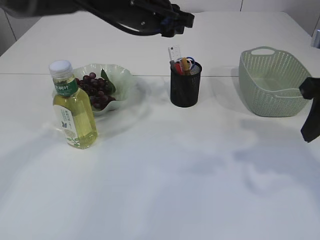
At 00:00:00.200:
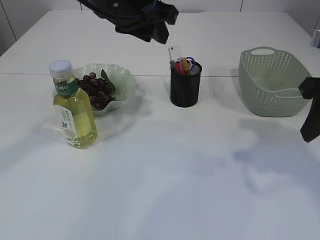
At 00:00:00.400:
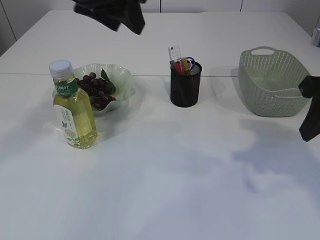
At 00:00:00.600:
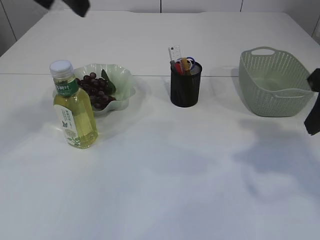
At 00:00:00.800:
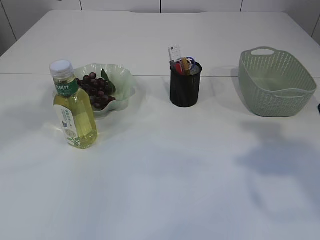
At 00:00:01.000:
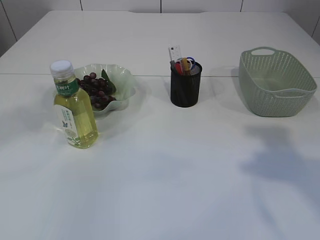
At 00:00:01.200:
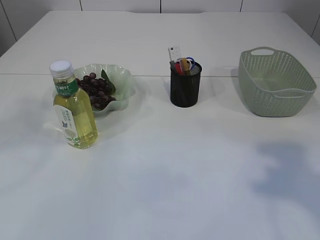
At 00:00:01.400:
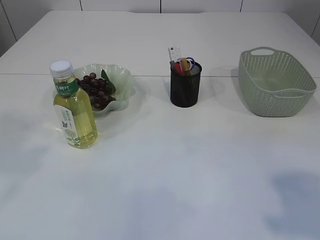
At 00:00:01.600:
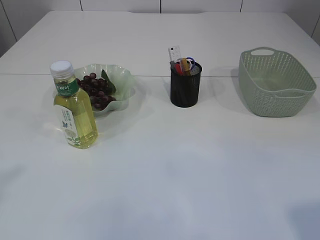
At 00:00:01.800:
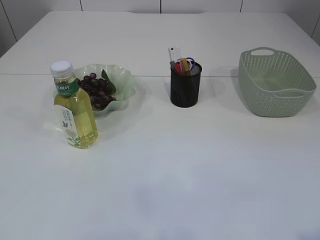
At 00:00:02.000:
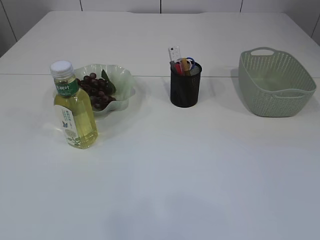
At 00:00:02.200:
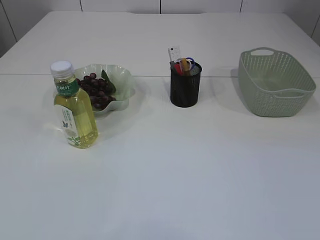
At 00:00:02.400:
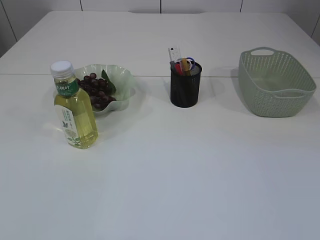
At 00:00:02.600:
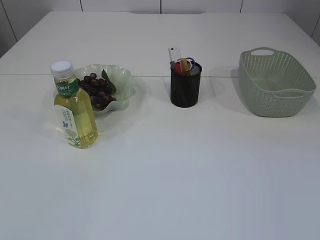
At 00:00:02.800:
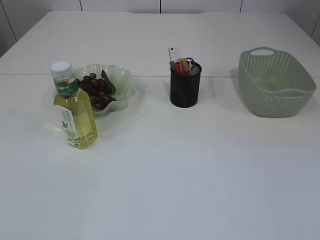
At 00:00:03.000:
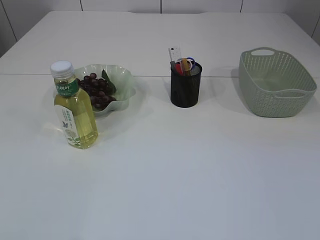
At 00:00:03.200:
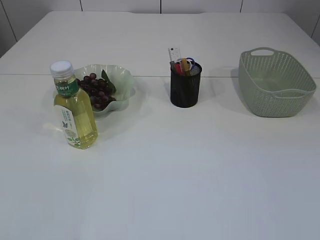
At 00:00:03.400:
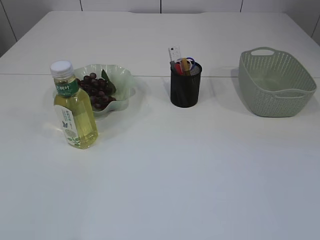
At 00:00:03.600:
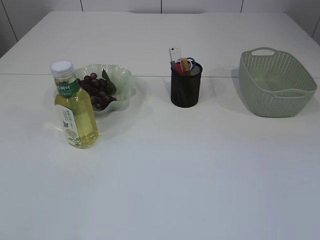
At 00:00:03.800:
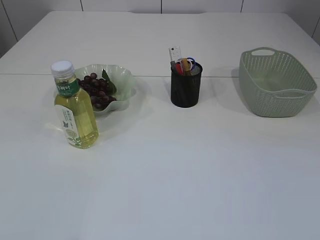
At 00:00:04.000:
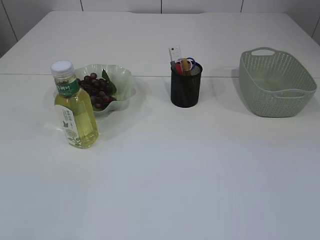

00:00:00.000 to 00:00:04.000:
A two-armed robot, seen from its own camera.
00:00:00.000 to 00:00:01.400: The right gripper moves backward and upward, approximately 20 cm. The left gripper travels backward, to the left and upward by some 35 cm, and opens up.
